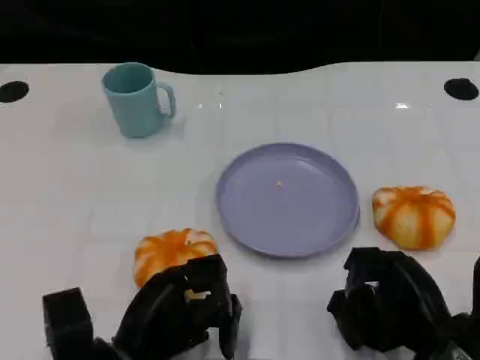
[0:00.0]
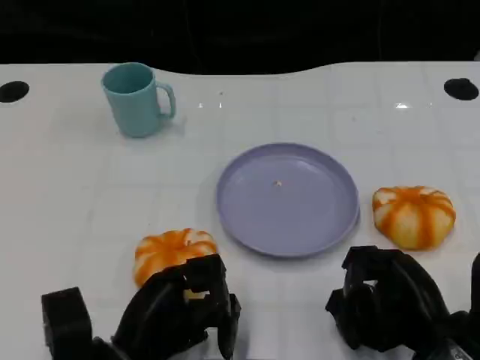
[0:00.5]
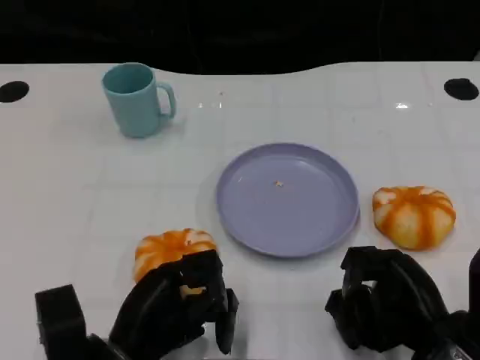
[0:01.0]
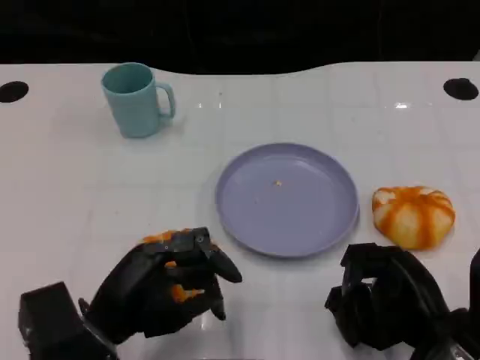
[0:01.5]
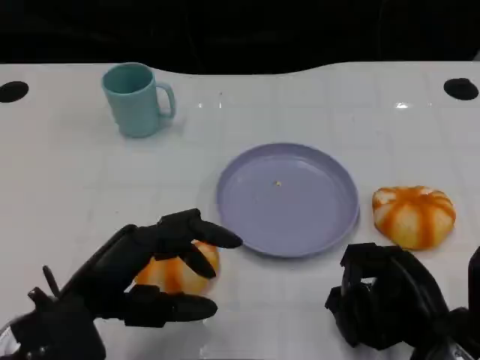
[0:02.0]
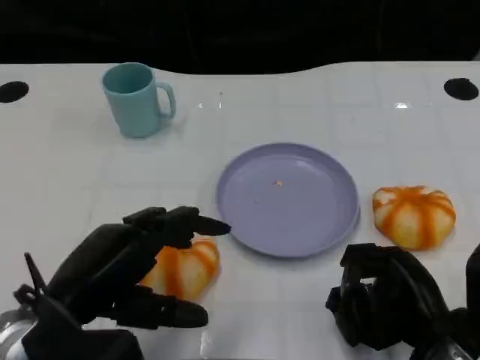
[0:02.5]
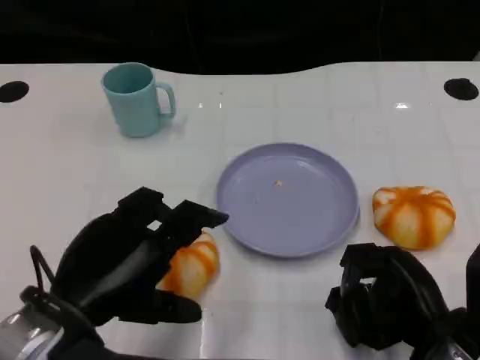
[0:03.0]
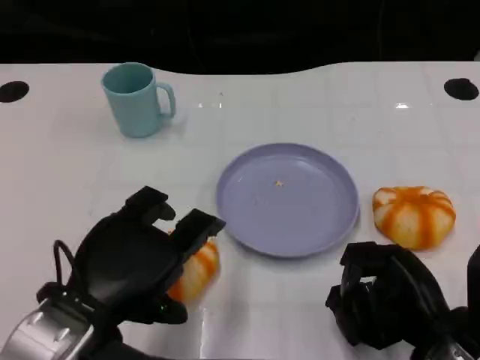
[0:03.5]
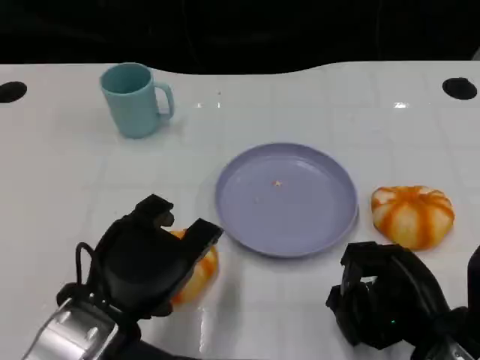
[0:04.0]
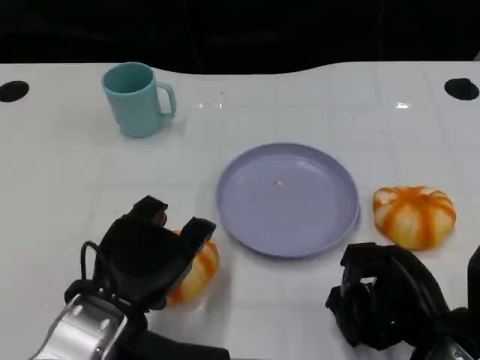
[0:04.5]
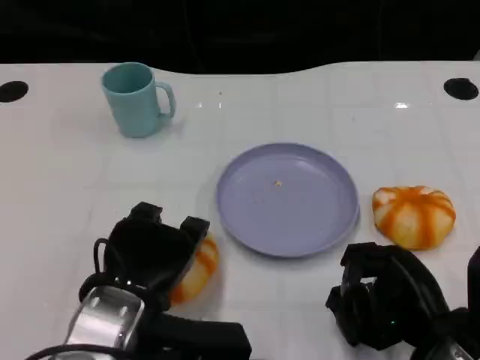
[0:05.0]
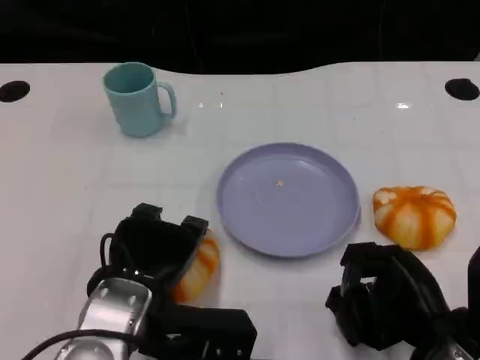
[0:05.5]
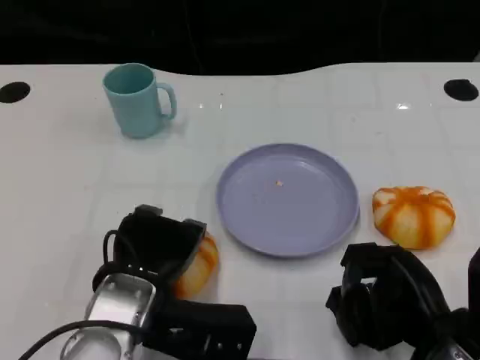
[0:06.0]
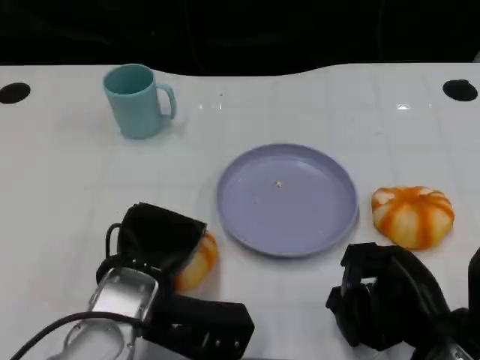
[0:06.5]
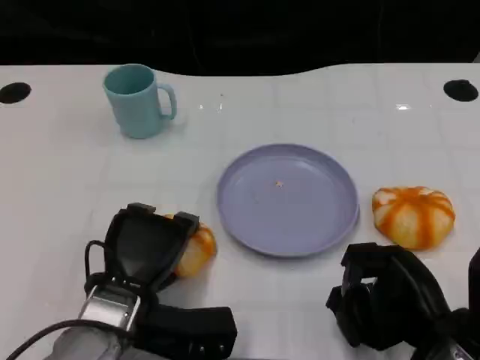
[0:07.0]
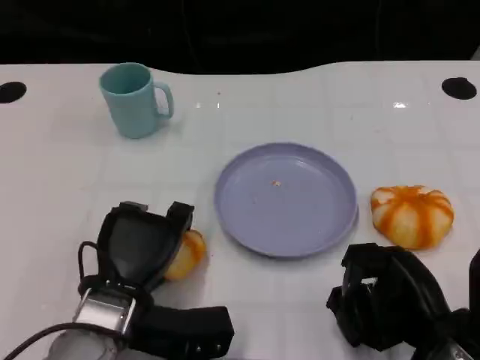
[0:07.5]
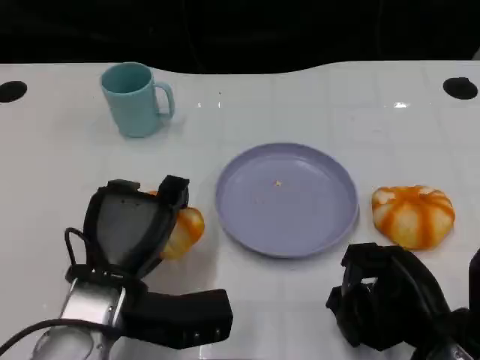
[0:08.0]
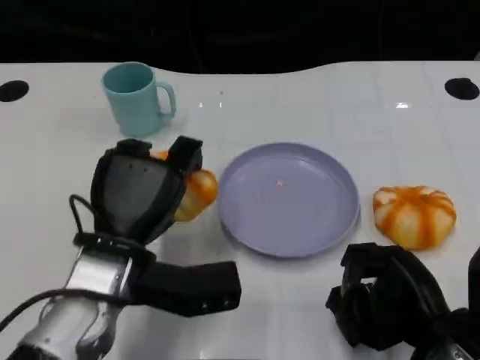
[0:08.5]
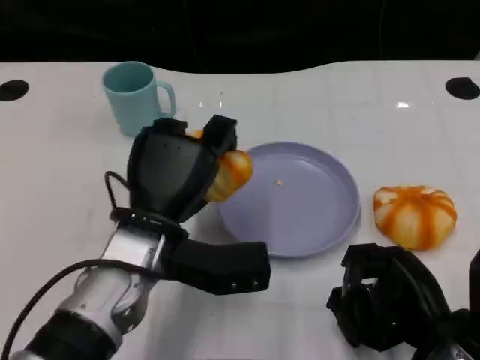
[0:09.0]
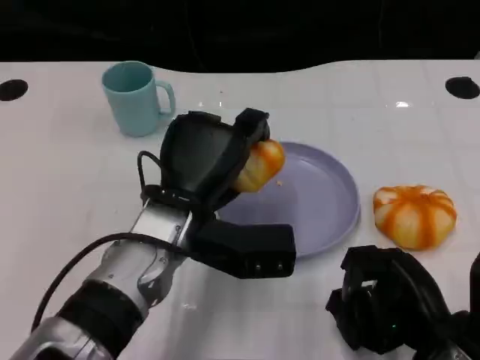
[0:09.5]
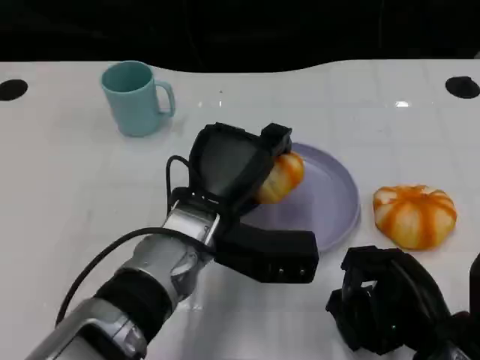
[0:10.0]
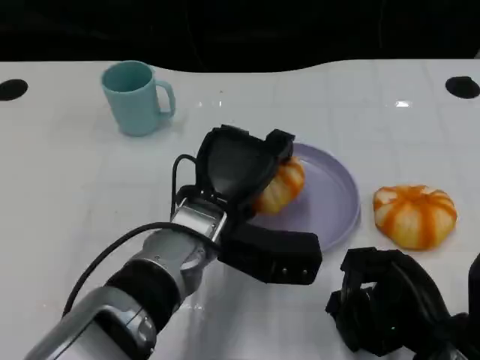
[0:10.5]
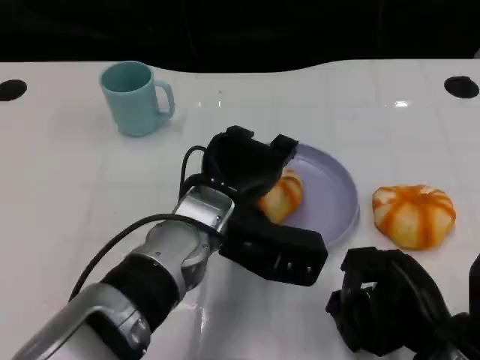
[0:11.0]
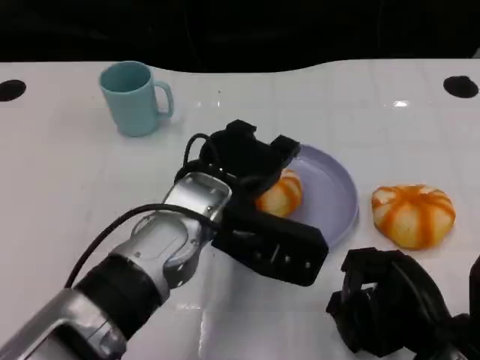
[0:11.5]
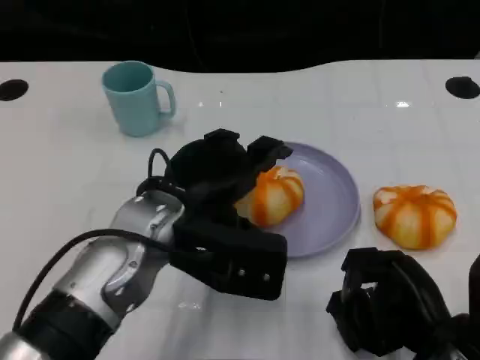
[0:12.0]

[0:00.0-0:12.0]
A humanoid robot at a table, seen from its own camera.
Task of the whole recording: Grasp the bread from the table and place it into the plate.
0:00.0 to 0:02.0: The left hand is displaced upward by approximately 5 cm.
0:04.0 to 0:06.0: The left hand moves approximately 5 cm.
0:08.0 to 0:10.0: The left hand travels to the right and forward by some 10 cm.
0:10.0 to 0:12.0: The left hand moves roughly 5 cm.

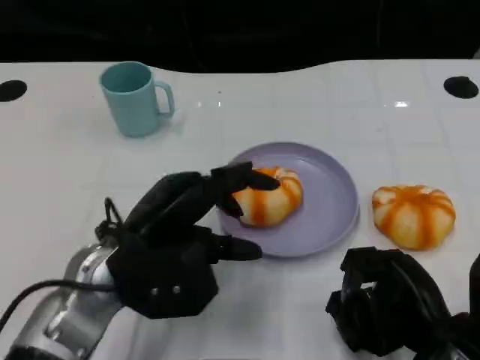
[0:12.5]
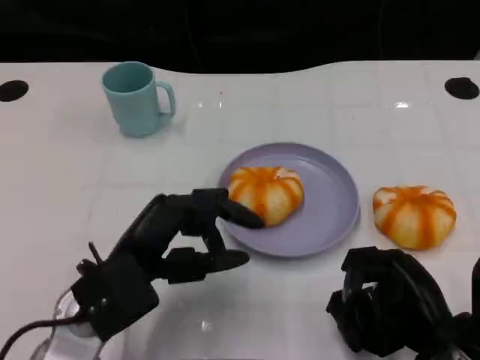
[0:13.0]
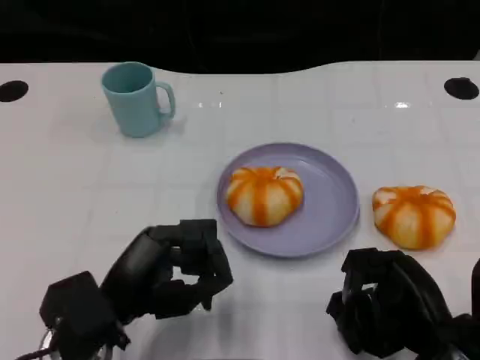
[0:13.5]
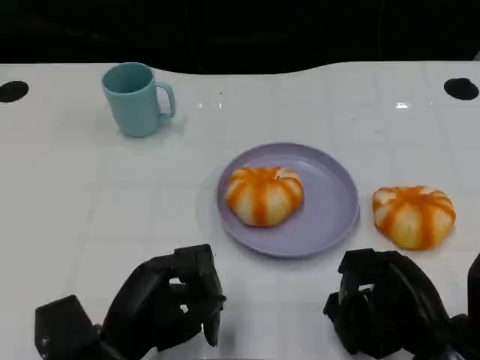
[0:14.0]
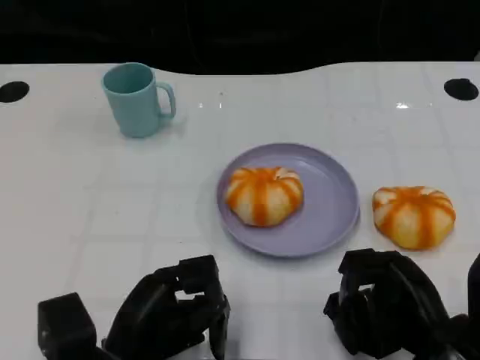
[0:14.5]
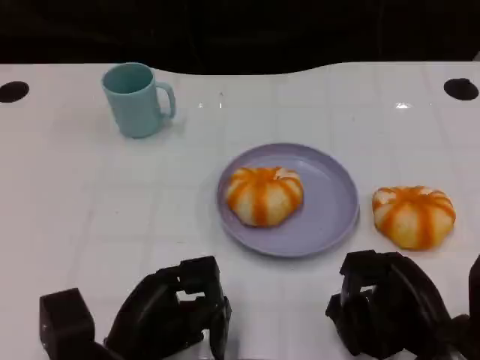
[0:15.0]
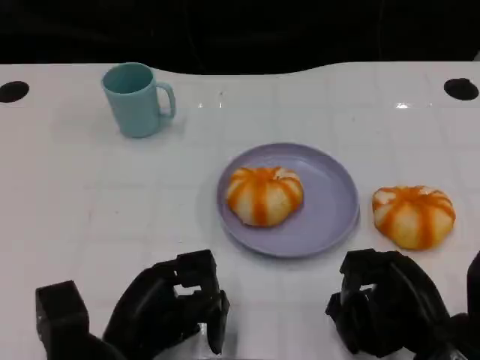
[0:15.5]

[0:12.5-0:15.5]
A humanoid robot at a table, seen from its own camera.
Task of the whole recording: Grasp the bread from the table and place it into the plate.
0:12.5 to 0:14.0: The left hand moves backward and downward, approximately 10 cm.
0:14.0 to 0:15.5: The hands make only small movements.

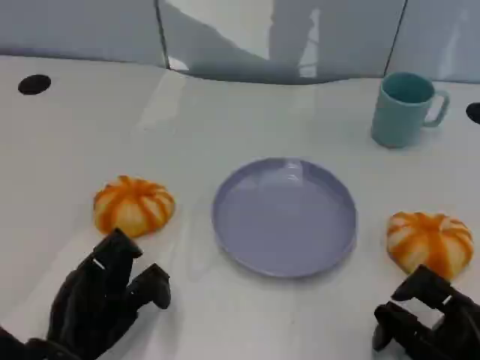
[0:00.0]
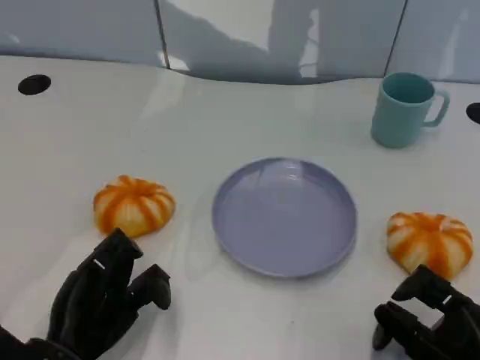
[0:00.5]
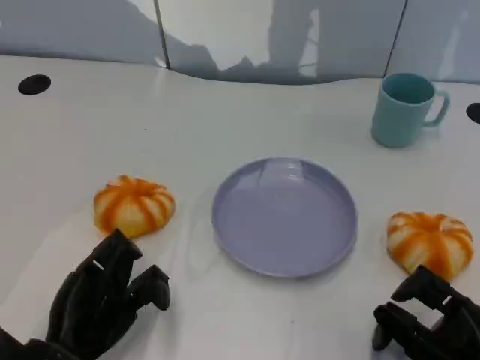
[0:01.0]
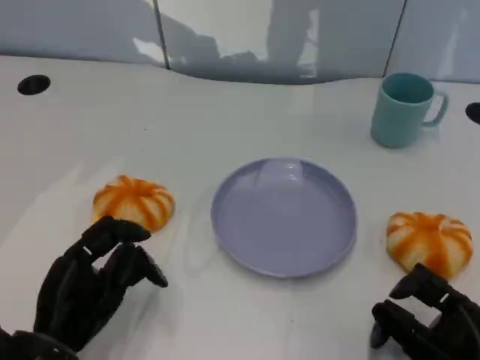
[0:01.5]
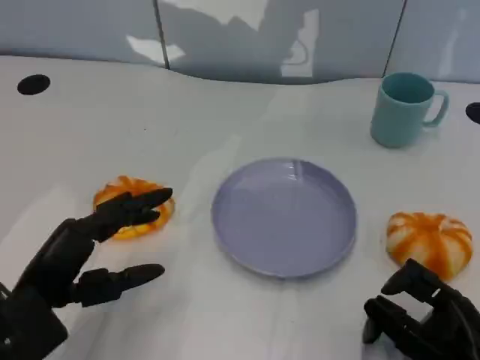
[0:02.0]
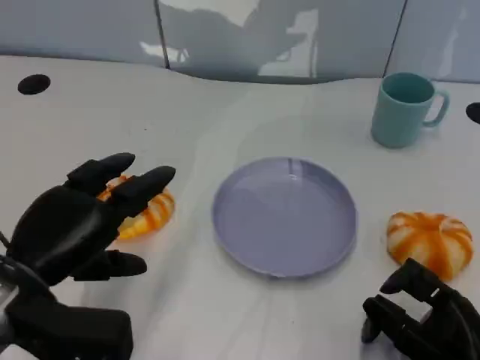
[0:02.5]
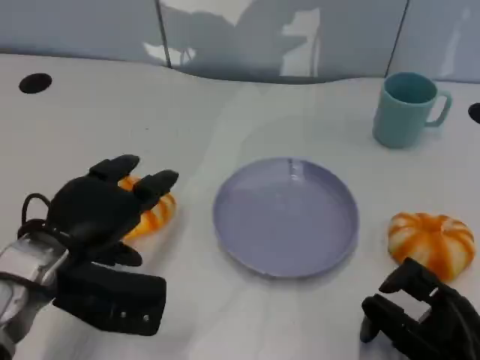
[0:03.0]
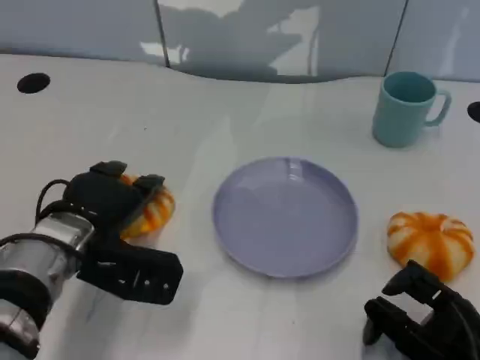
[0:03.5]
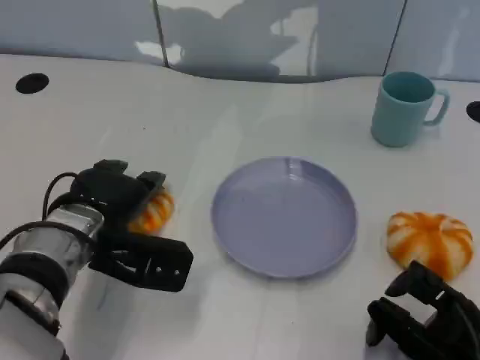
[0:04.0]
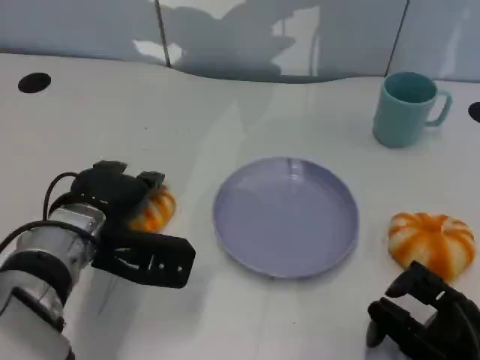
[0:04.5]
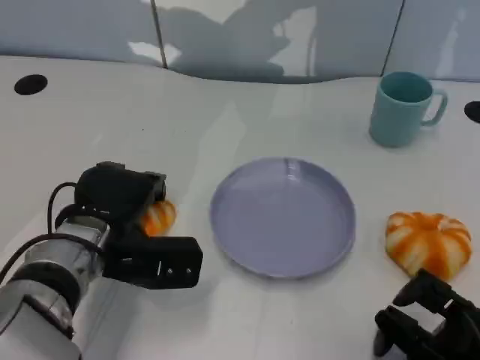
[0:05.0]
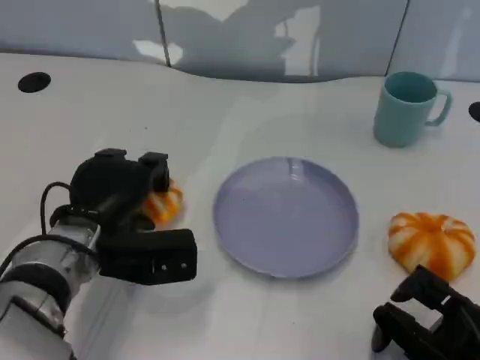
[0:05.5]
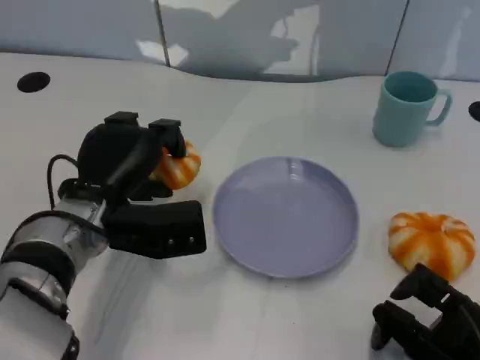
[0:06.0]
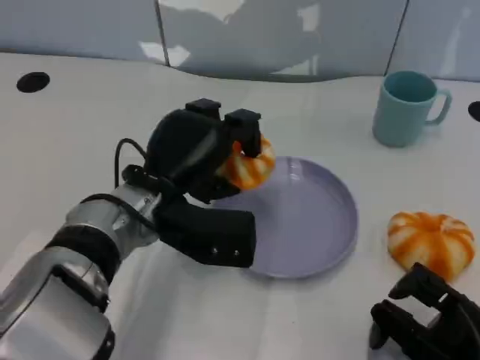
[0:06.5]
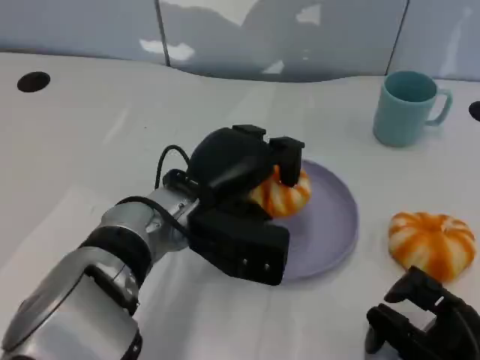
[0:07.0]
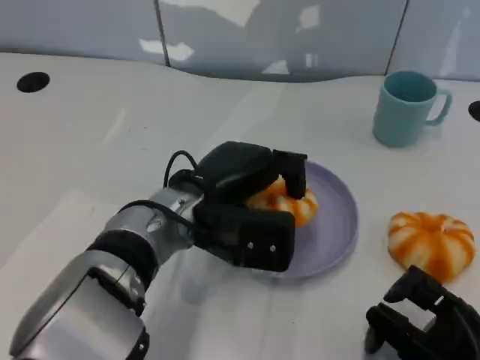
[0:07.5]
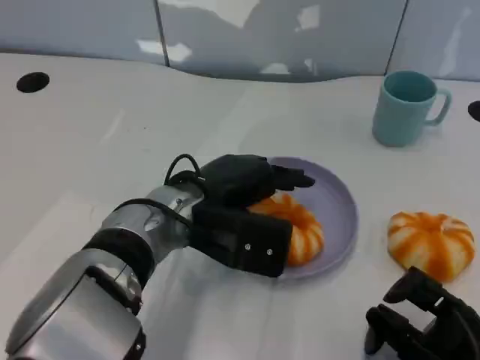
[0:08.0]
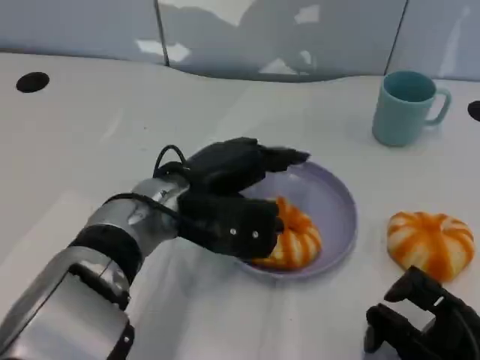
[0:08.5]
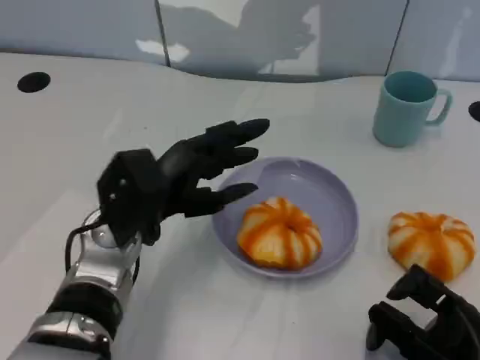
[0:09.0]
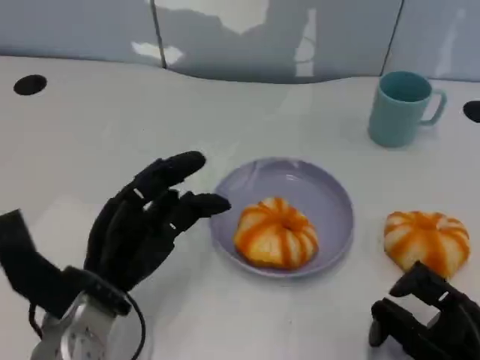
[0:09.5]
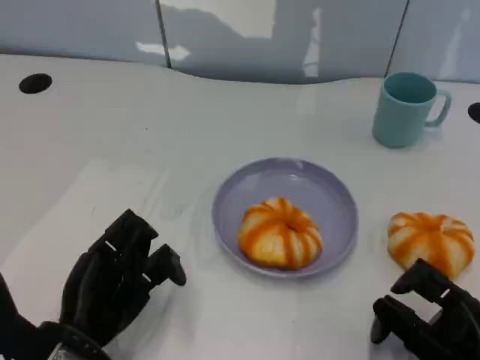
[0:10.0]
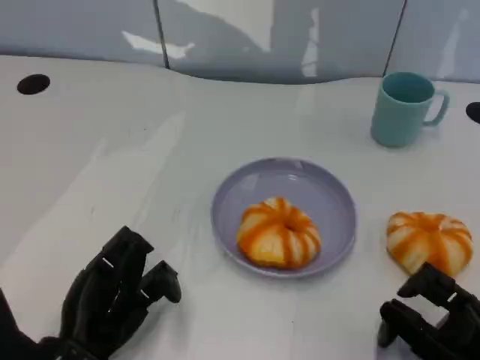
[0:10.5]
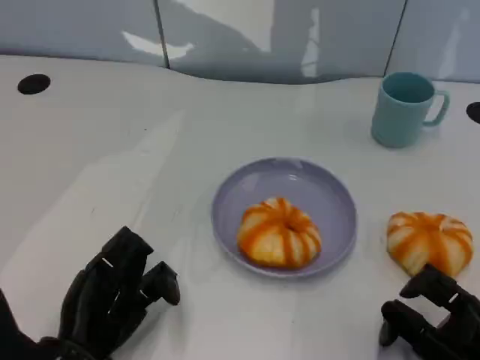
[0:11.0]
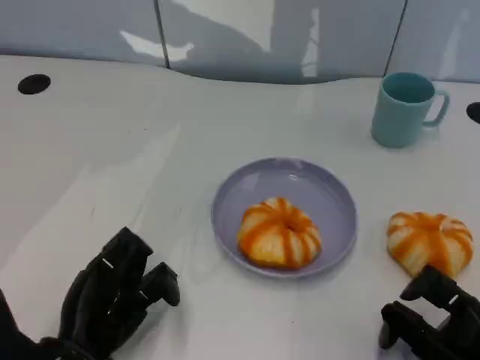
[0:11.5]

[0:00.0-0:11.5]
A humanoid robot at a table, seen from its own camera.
Task of the whole recording: Grasp the bread from the table and place it into the plate.
0:00.0 to 0:02.0: The left hand is displaced upward by approximately 5 cm.
0:02.0 to 0:04.0: The left hand goes about 10 cm forward and to the right.
0:06.0 to 0:07.5: The left hand moves to the right, roughly 10 cm.
0:07.5 to 0:09.5: The left hand goes roughly 15 cm to the left, backward and downward.
0:09.5 to 0:11.5: The left hand shifts by roughly 5 cm.
